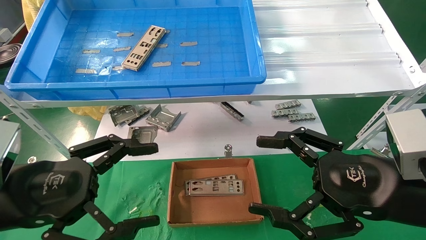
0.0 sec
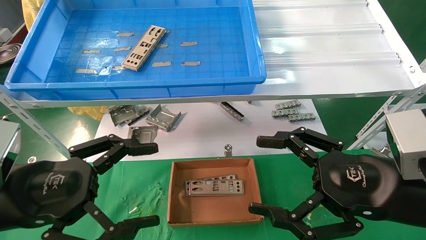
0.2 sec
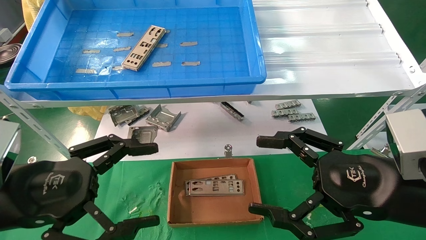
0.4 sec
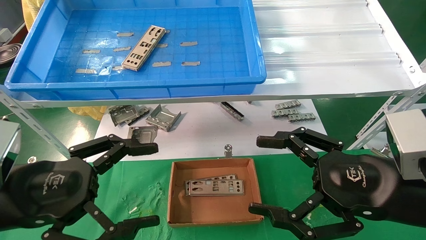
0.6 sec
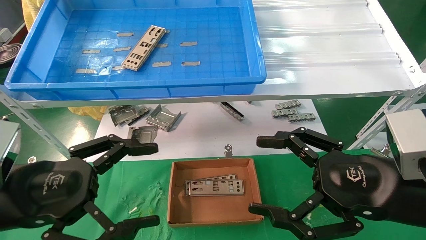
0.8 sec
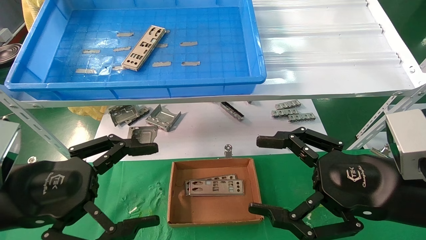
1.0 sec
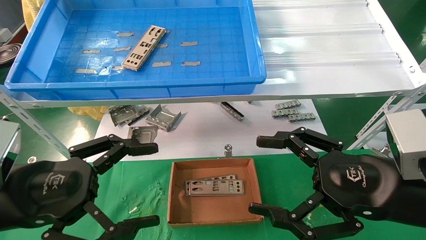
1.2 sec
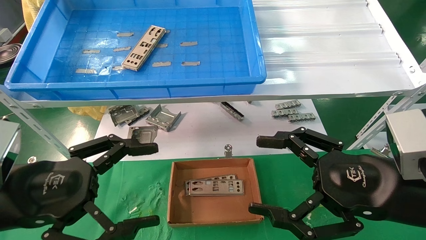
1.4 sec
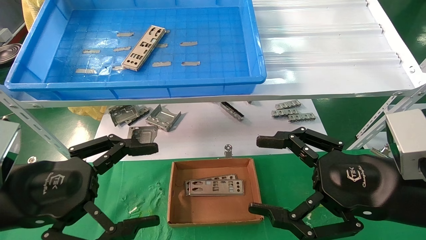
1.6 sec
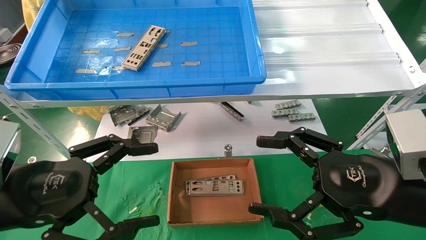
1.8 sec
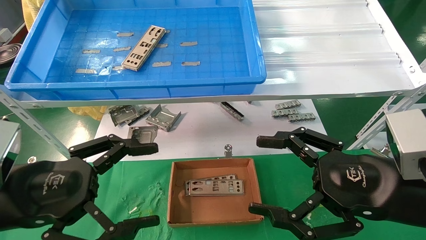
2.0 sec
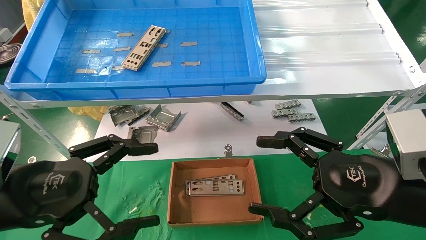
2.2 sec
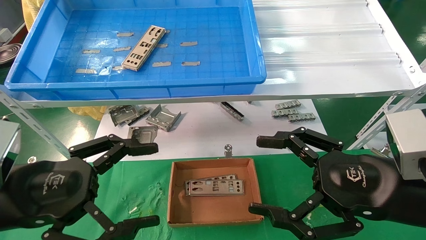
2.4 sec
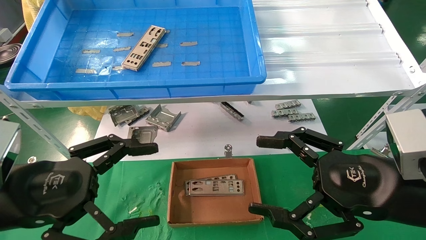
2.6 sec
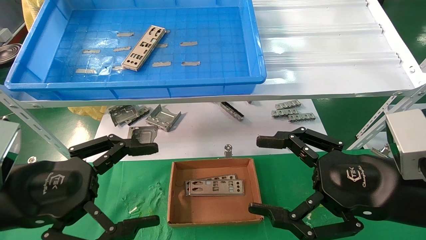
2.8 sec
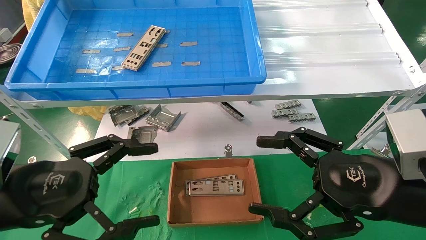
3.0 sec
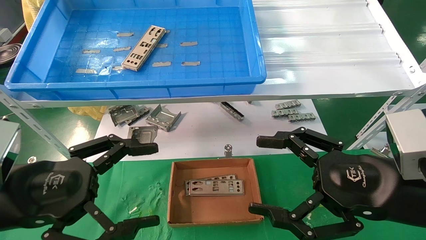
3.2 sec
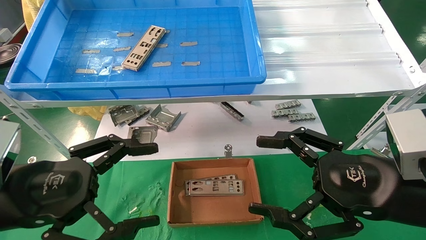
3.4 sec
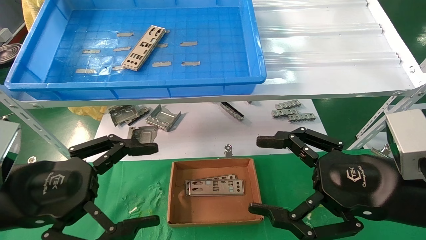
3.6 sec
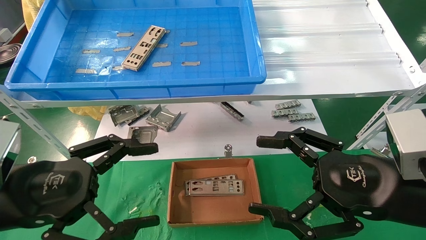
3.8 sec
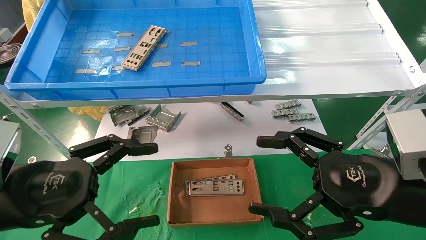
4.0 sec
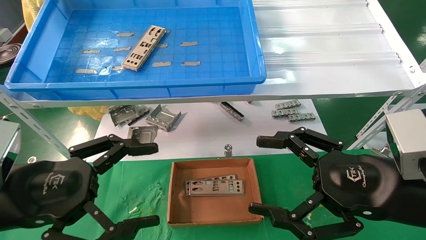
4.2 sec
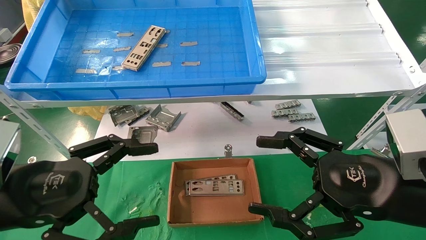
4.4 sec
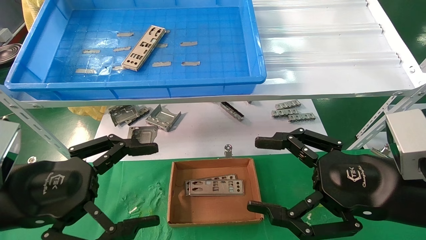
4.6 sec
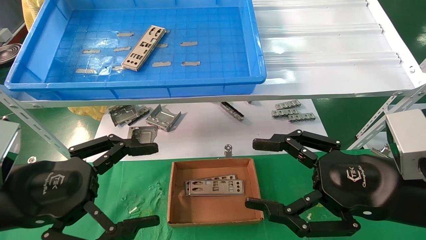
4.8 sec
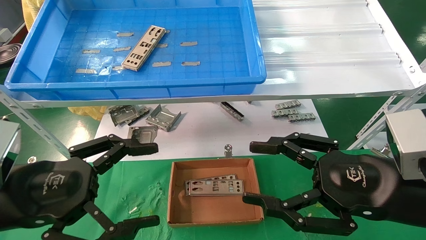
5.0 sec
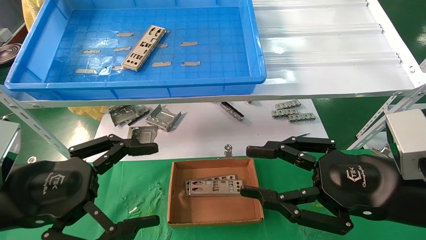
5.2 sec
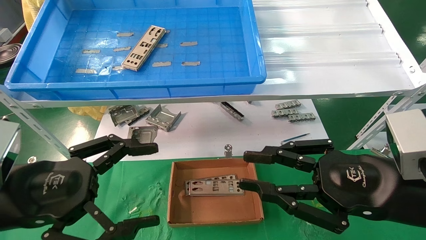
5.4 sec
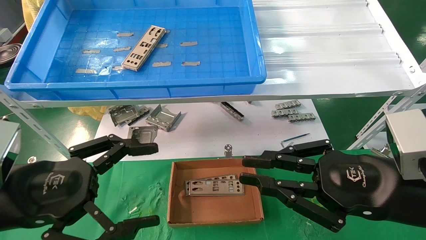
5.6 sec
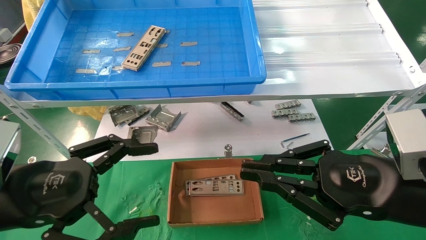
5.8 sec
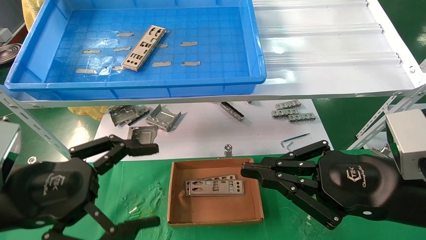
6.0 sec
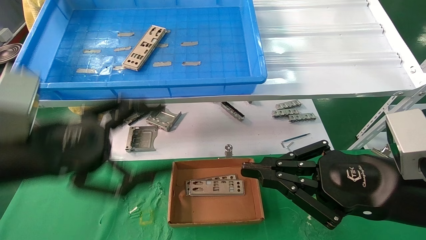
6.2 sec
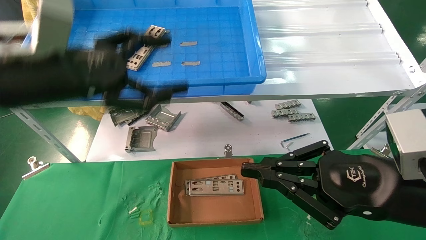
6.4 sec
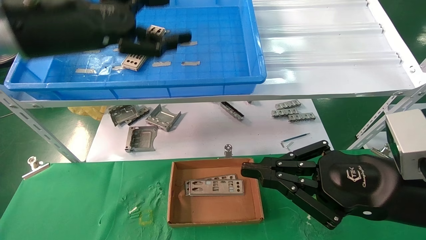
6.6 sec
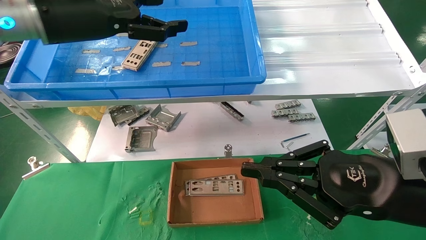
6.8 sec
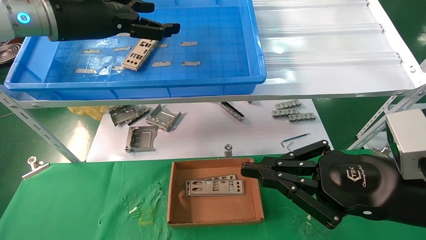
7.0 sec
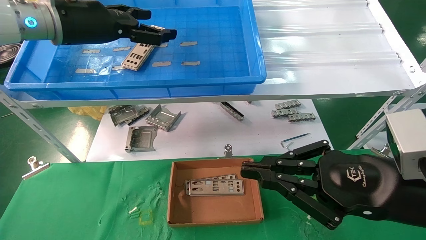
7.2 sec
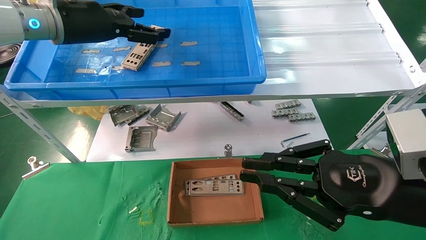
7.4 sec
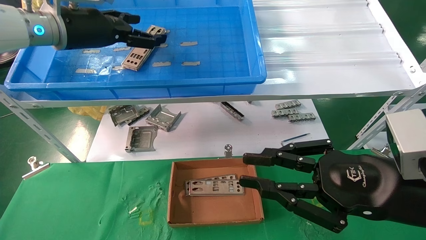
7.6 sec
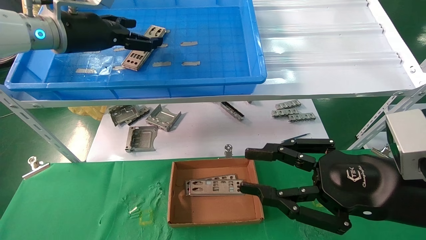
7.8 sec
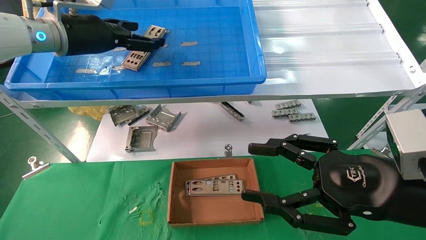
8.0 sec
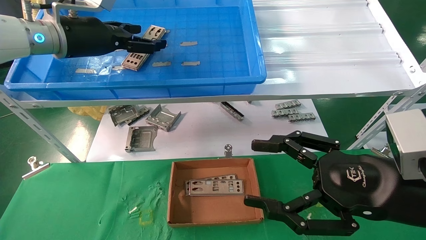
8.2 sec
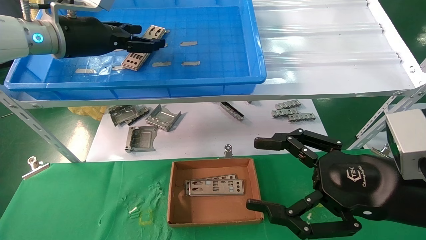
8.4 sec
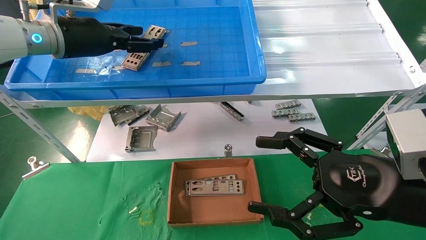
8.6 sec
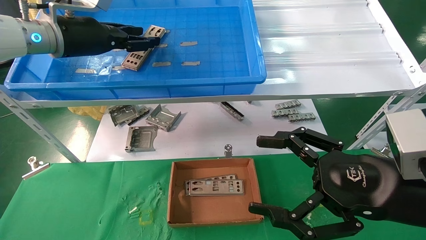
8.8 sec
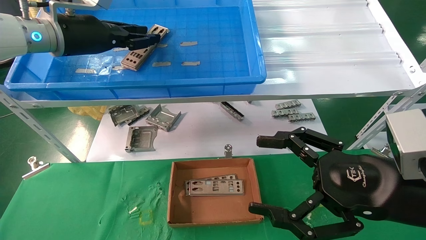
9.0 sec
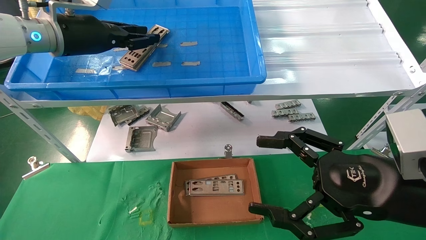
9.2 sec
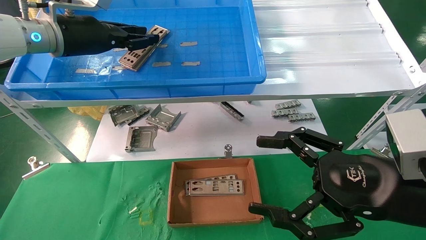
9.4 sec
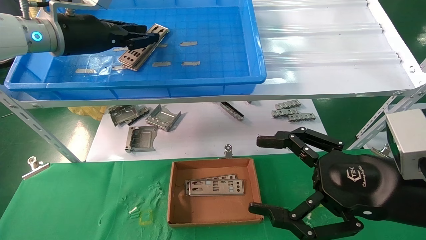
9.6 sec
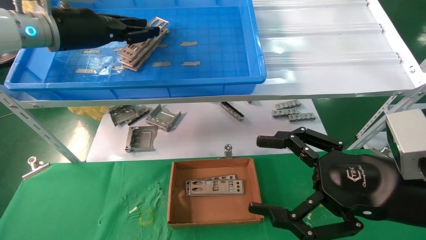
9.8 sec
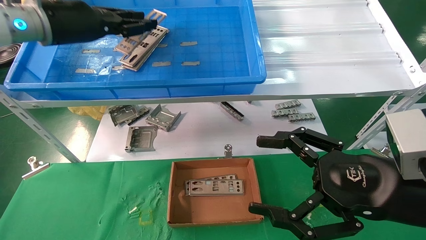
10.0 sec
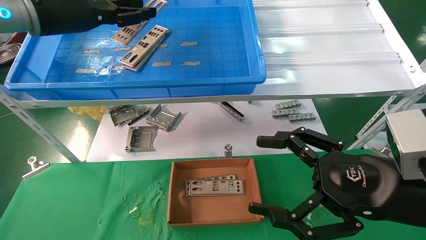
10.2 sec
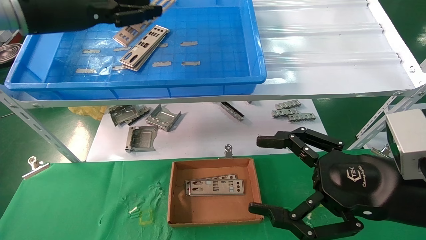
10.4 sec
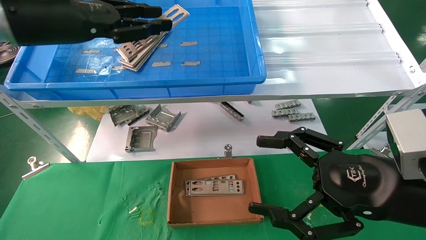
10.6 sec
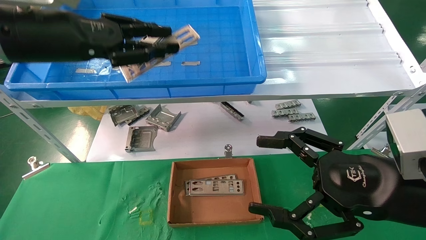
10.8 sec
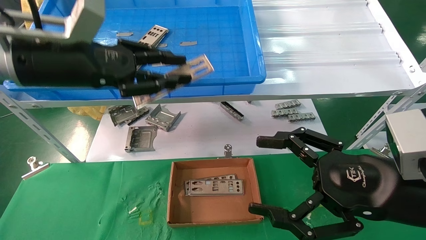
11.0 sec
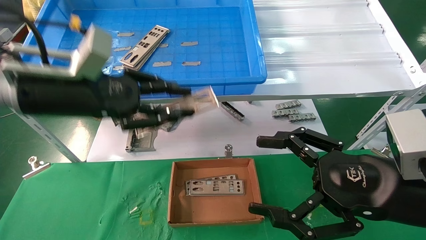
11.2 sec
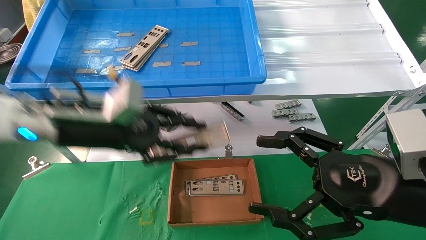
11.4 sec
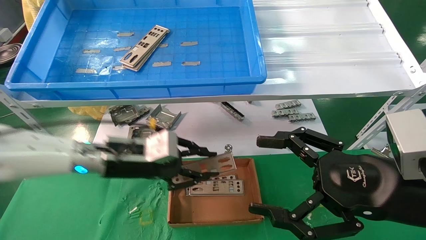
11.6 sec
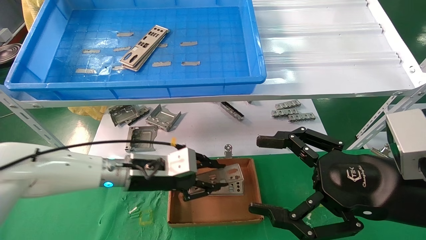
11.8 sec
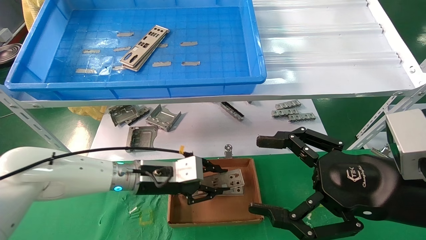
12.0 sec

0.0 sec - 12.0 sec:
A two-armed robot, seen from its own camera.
Task of the whole recording: pick up the parts on the tray and put them in the cardboard box.
Step, 6.6 sec - 9.2 sec: Pick up the IO bracket from the container box.
0.0 sec - 4.4 sec: The two grippers keep their place.
4.4 sec - 6.0 sec: The right gripper closes.
6.0 sec - 7.6 sec: The left gripper goes roughly 25 cm forward and upward.
7.6 sec - 9.0 sec: The left gripper closes; the right gripper opens.
9.0 sec - 10.4 sec: The left gripper moves backward, about 5 cm.
10.4 sec - 12.0 sec: The left gripper is displaced downward and to the right by some 35 cm.

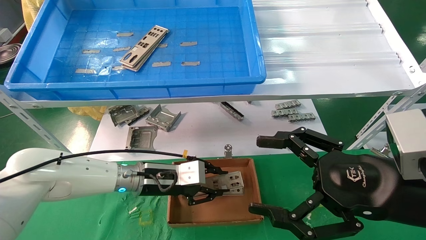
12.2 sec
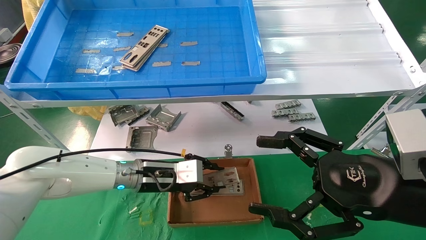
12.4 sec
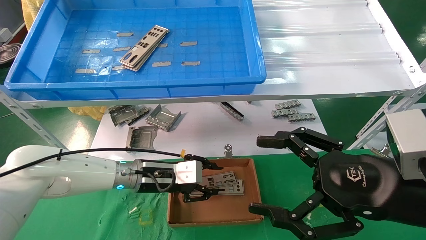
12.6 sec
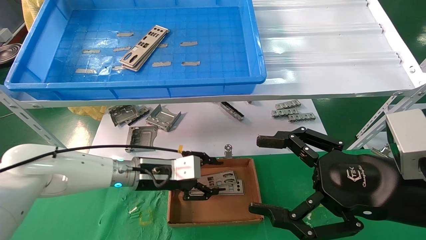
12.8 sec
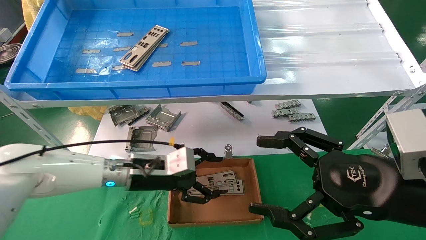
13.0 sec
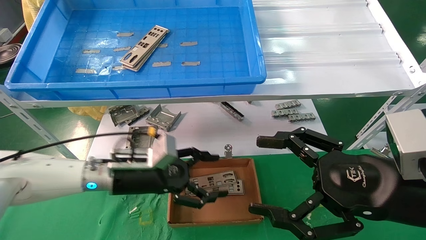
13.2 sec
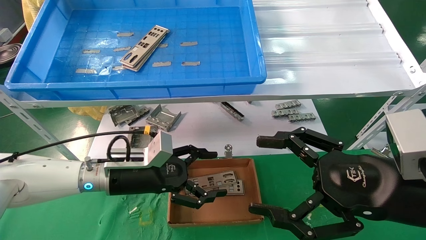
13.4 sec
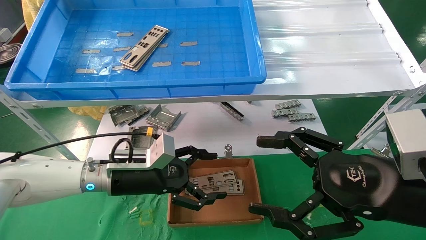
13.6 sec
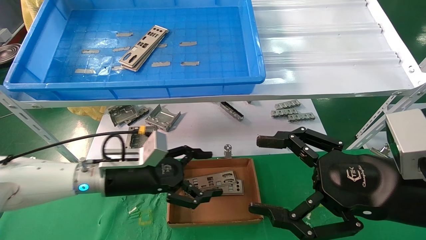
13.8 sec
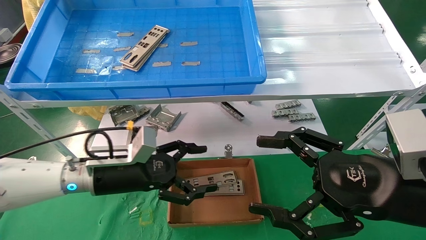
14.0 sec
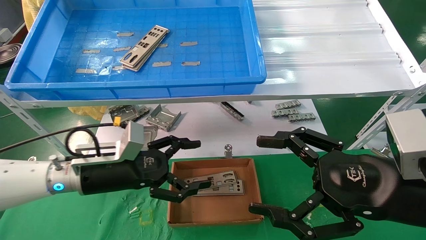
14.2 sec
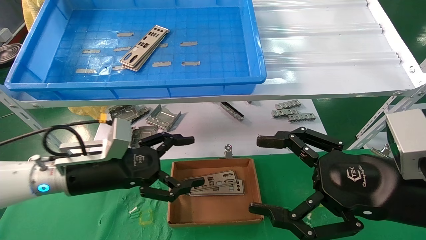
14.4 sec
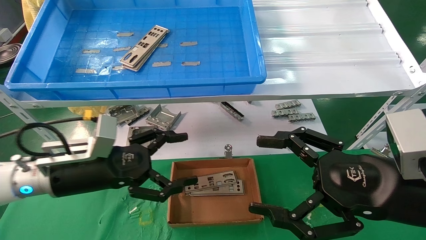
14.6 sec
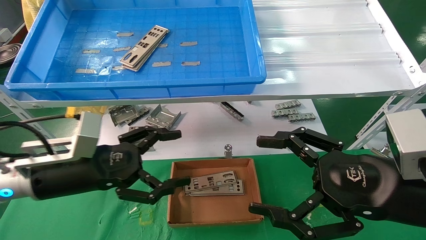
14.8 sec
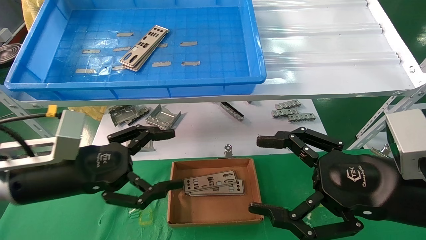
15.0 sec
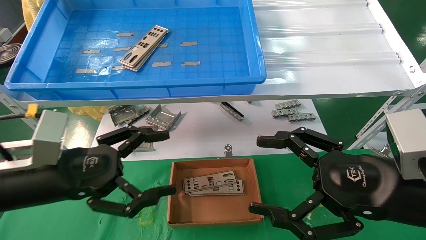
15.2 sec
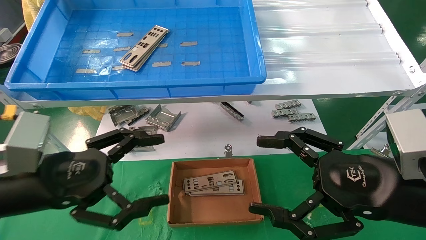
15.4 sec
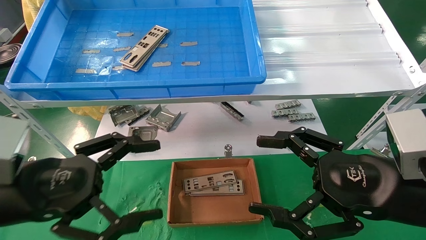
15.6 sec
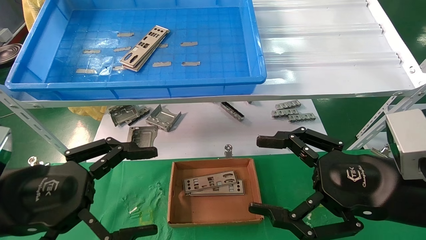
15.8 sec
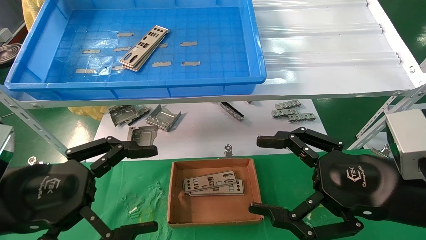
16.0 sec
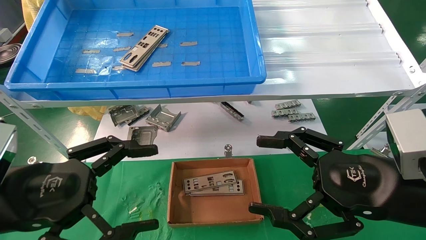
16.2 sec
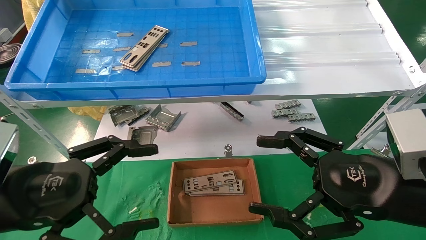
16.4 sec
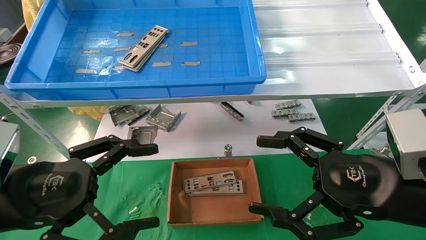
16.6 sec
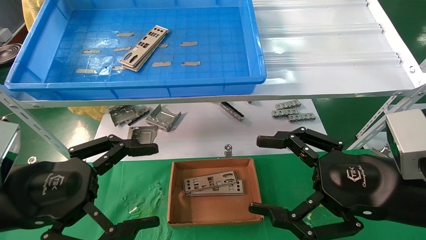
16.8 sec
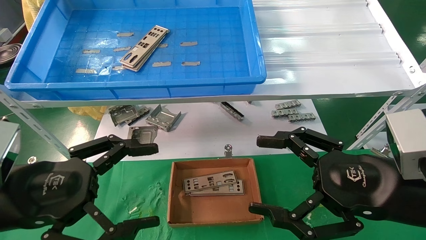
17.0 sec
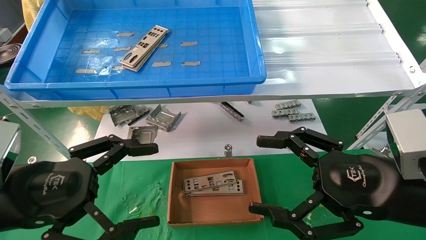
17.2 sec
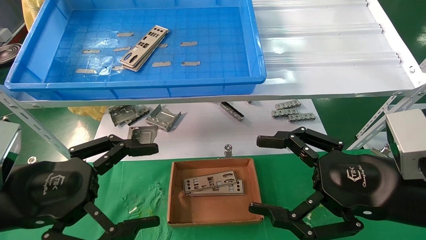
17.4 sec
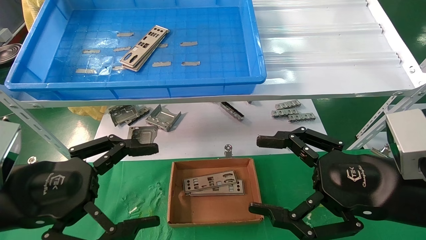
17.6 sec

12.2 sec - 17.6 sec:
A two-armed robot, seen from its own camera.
Task of the whole recording: pick up the parts on the tray and put them in the cardboard box.
12.2 sec - 13.6 sec: The left gripper shifts by about 5 cm, and opens.
13.6 sec - 15.0 sec: The left gripper goes some 15 cm backward, to the left and upward.
15.0 sec - 16.2 sec: The left gripper travels backward by roughly 10 cm.
16.2 sec - 17.6 sec: Neither gripper changes place.
